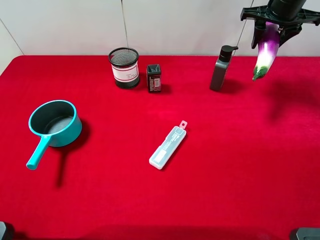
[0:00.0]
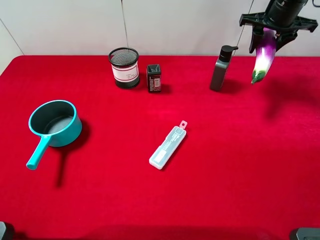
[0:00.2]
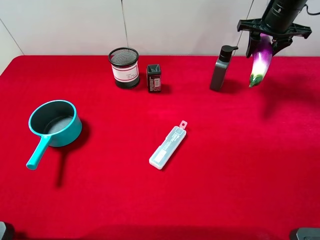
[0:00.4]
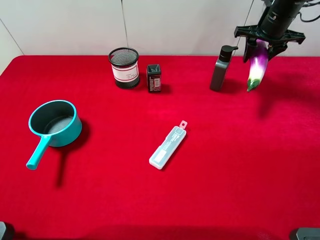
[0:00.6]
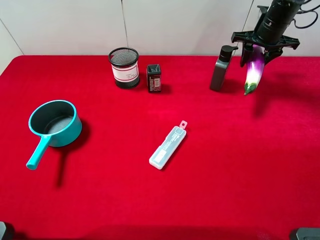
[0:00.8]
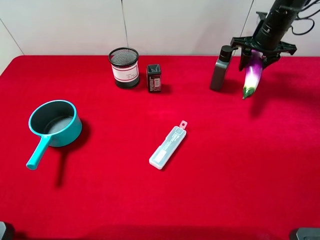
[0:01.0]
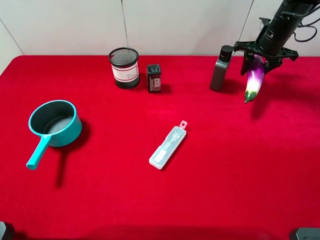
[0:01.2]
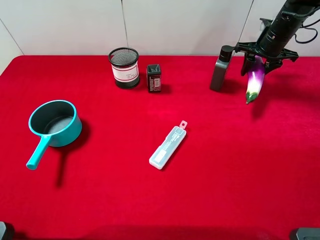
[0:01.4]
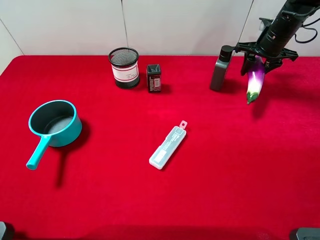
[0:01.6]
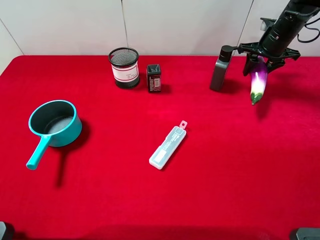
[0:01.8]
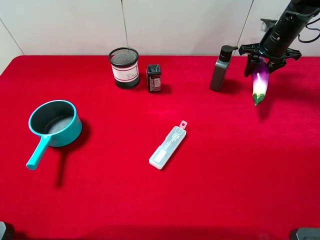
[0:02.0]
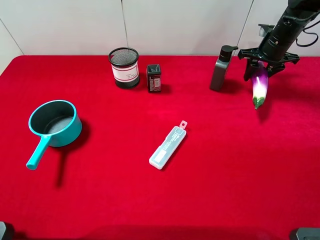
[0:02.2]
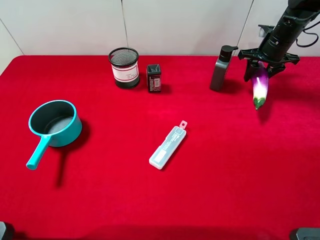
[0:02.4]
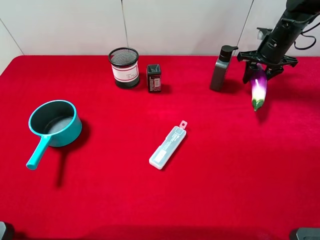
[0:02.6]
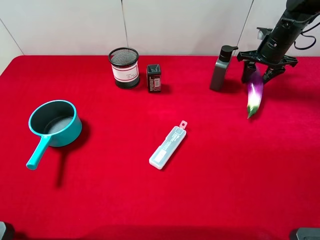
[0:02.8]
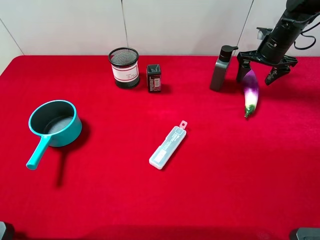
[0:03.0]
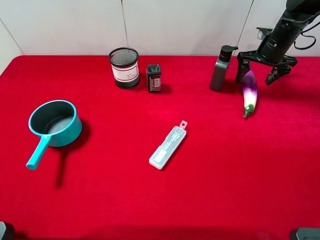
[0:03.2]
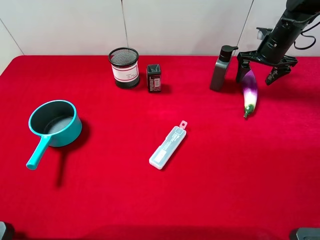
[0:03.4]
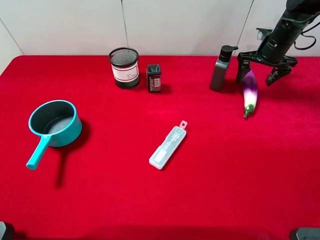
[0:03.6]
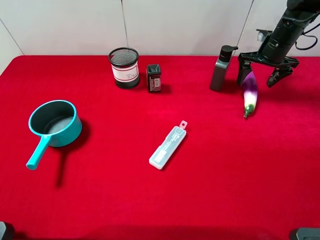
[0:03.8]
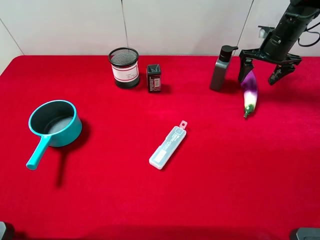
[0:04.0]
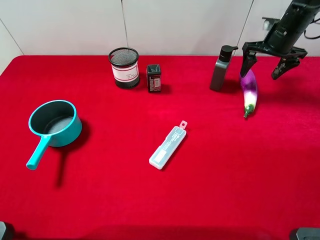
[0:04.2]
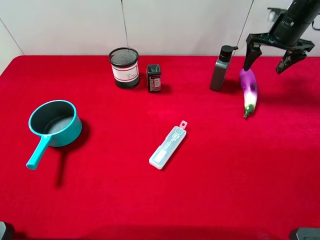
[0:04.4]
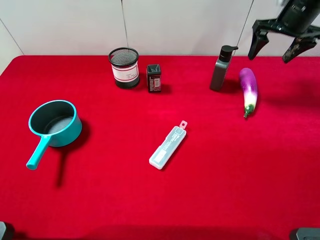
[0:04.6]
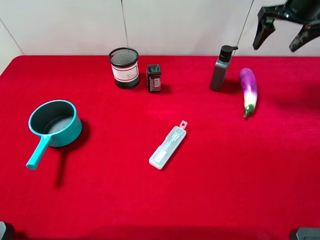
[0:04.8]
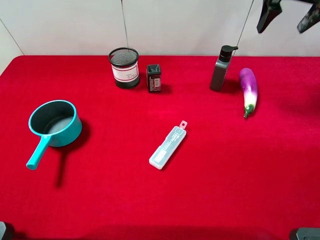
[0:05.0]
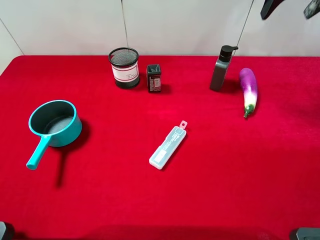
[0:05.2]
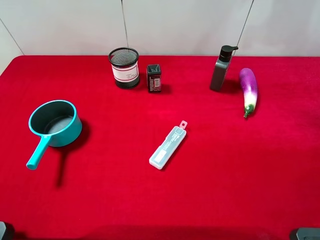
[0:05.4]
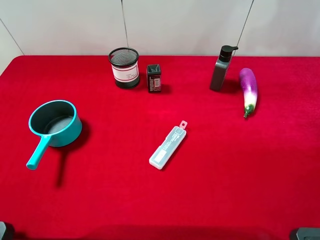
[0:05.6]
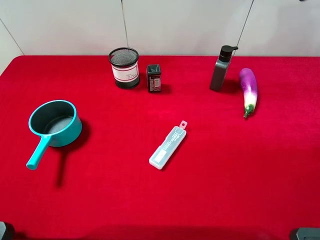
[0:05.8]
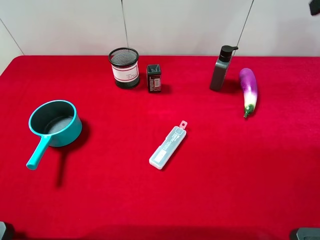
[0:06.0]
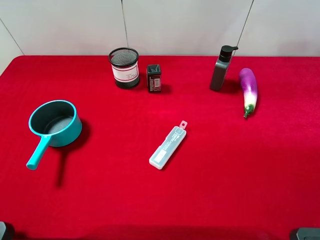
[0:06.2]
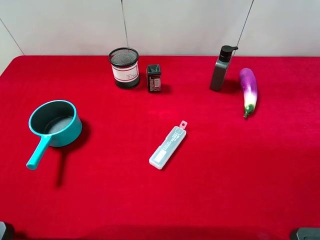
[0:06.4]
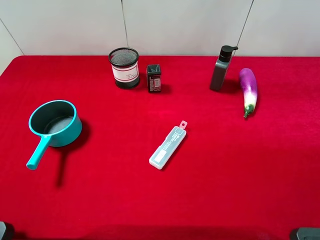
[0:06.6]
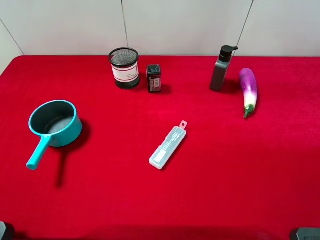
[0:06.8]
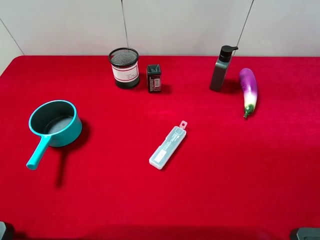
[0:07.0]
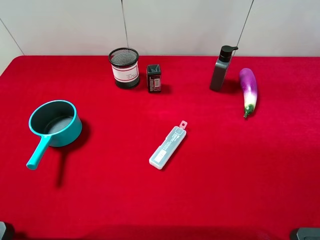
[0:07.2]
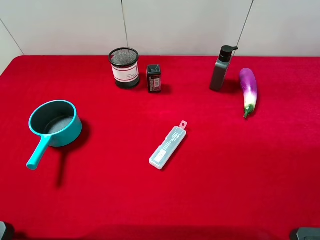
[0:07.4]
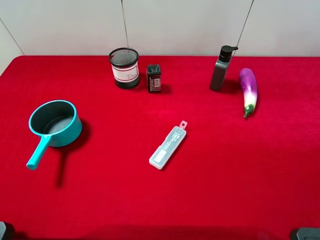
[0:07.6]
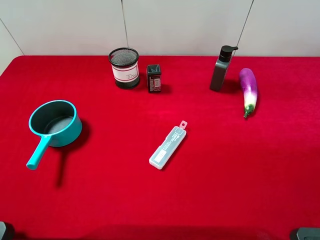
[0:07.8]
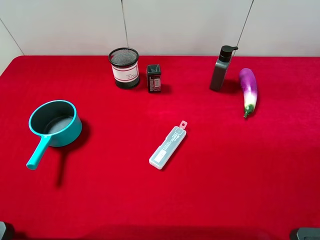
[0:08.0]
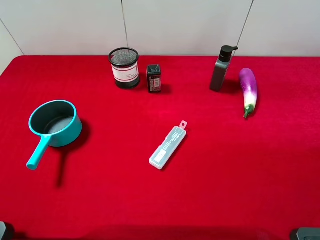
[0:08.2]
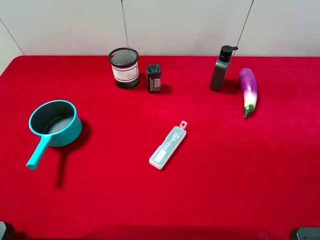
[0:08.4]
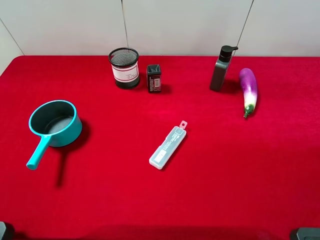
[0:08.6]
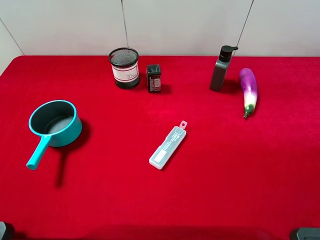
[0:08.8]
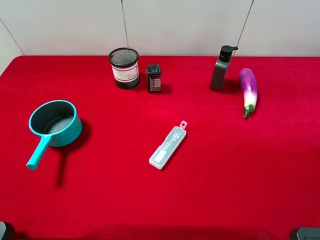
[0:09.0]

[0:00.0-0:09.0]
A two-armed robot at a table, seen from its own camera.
Task of the whole recording: the gripper move the object.
Step, 0:00.0 to 0:04.4: Place the eggplant on the table with the right gripper.
0:00.0 to 0:01.6: The right gripper is displaced downward by roughly 10 cm.
0:01.6 to 0:03.0: The right gripper opens up.
0:03.0 to 0:04.4: The right gripper shifts about 5 cm upward.
0:04.4 to 0:06.0: The right gripper shifts some 30 cm backward and upward.

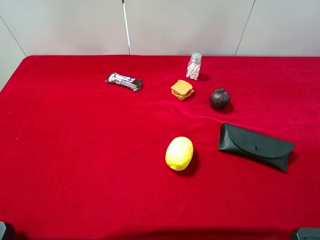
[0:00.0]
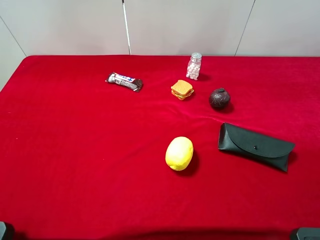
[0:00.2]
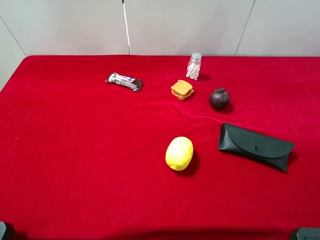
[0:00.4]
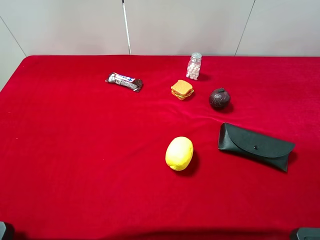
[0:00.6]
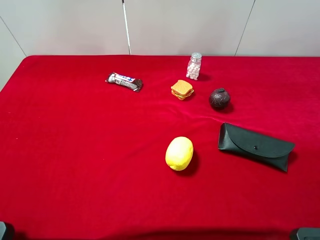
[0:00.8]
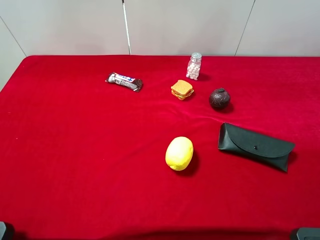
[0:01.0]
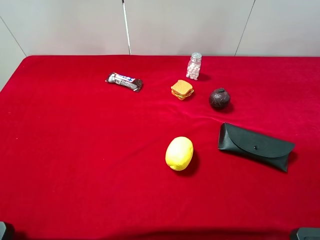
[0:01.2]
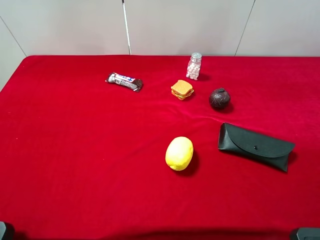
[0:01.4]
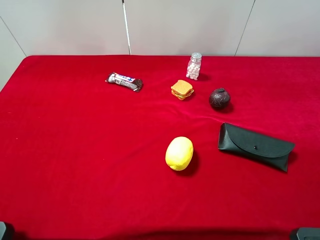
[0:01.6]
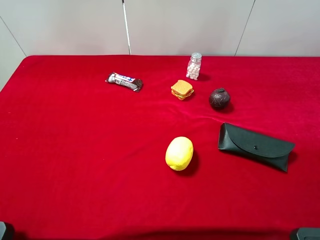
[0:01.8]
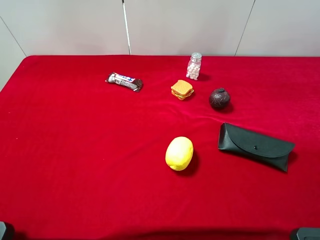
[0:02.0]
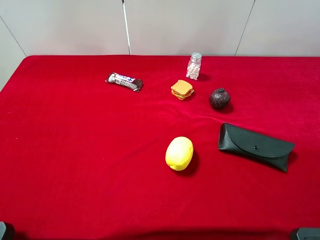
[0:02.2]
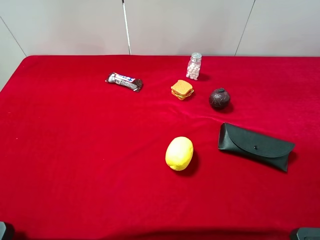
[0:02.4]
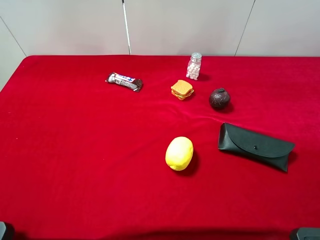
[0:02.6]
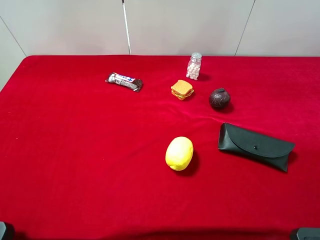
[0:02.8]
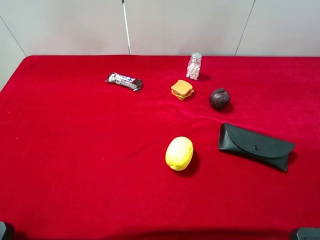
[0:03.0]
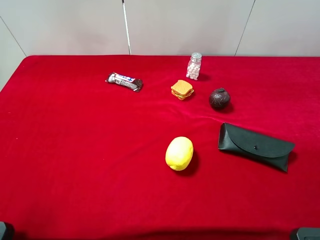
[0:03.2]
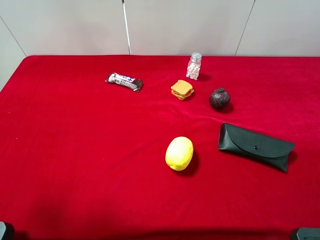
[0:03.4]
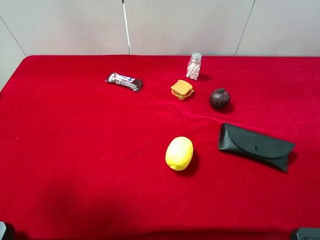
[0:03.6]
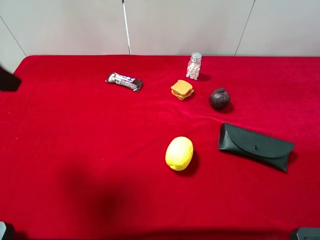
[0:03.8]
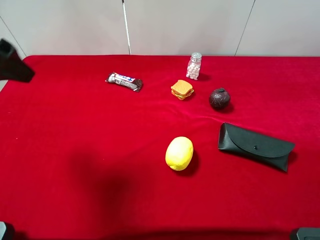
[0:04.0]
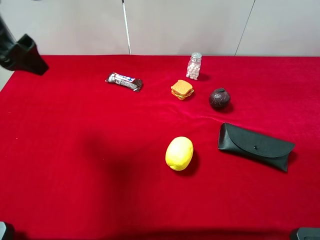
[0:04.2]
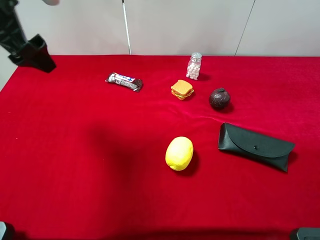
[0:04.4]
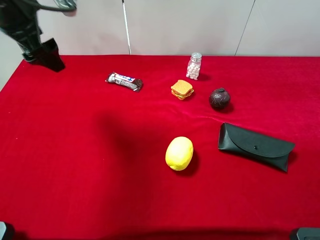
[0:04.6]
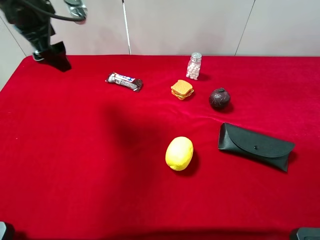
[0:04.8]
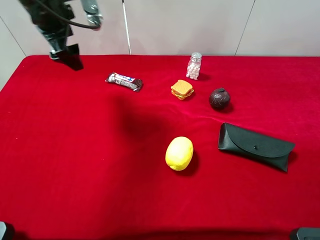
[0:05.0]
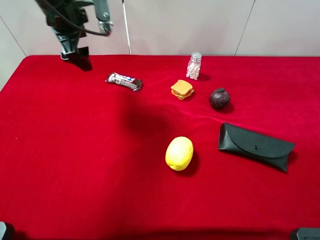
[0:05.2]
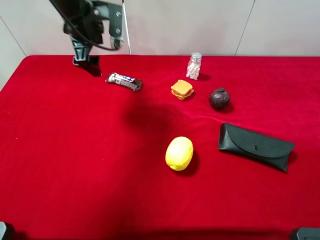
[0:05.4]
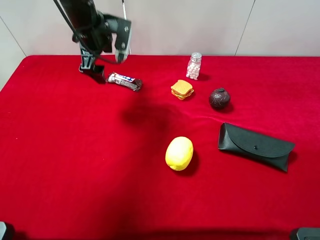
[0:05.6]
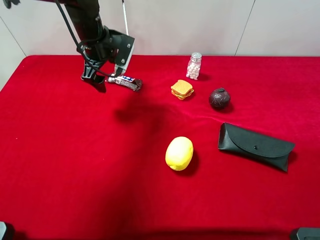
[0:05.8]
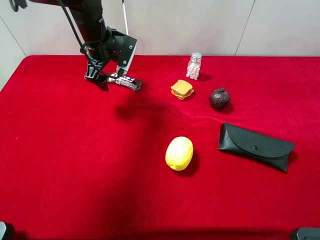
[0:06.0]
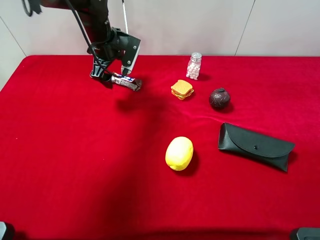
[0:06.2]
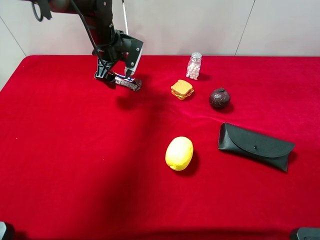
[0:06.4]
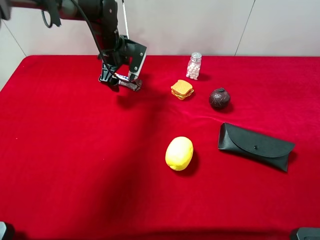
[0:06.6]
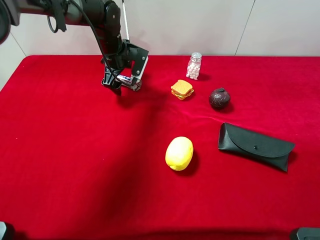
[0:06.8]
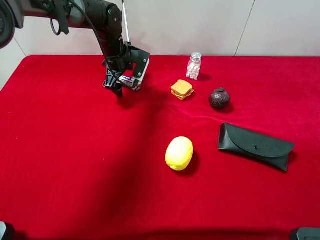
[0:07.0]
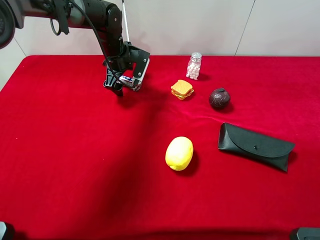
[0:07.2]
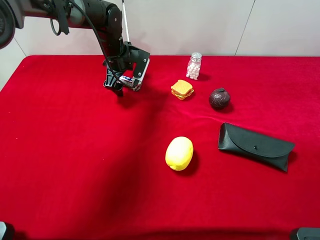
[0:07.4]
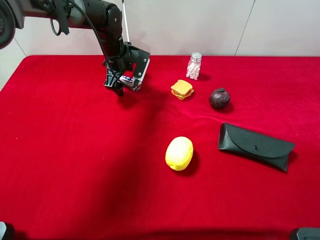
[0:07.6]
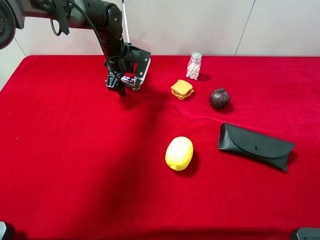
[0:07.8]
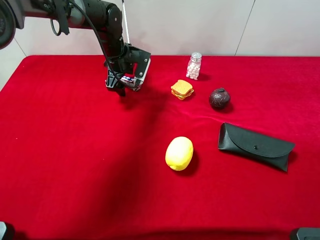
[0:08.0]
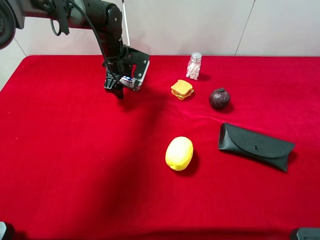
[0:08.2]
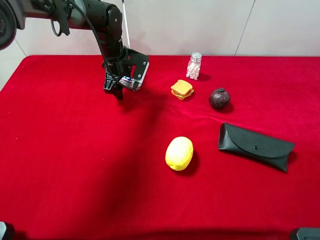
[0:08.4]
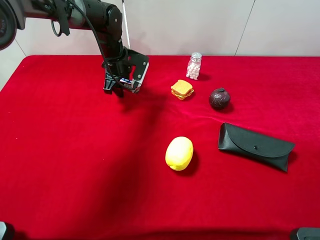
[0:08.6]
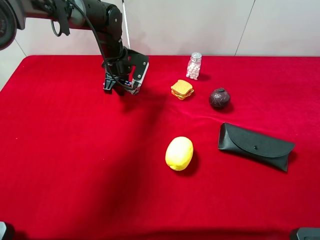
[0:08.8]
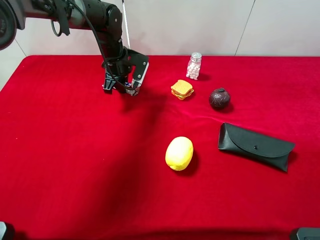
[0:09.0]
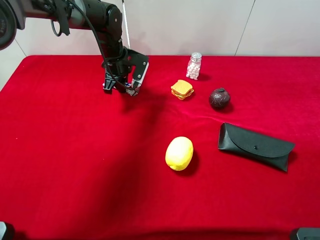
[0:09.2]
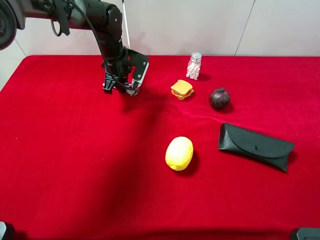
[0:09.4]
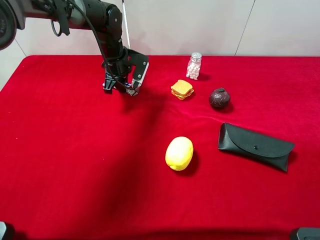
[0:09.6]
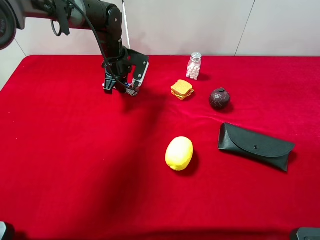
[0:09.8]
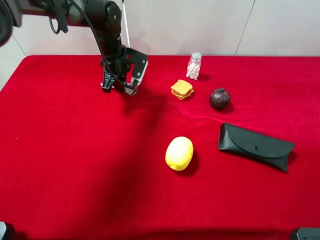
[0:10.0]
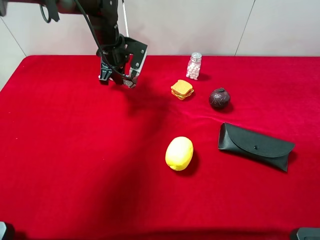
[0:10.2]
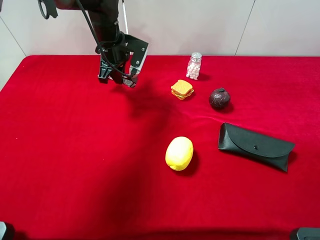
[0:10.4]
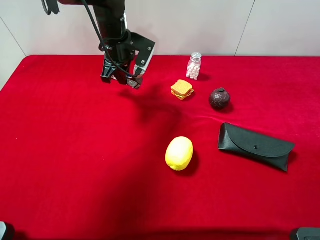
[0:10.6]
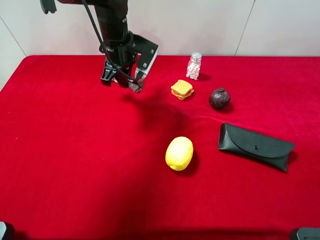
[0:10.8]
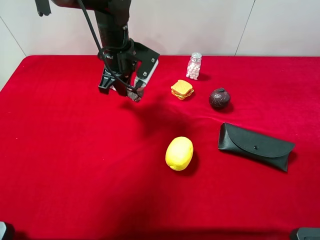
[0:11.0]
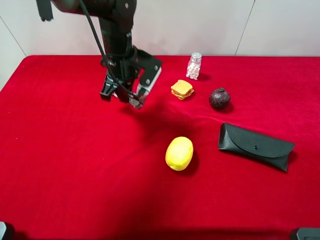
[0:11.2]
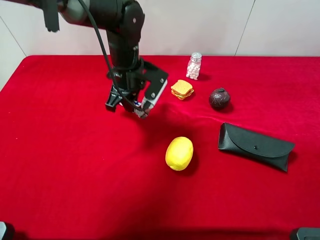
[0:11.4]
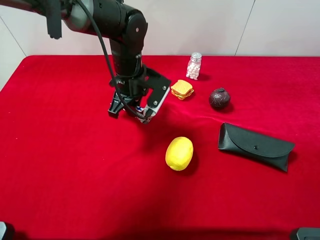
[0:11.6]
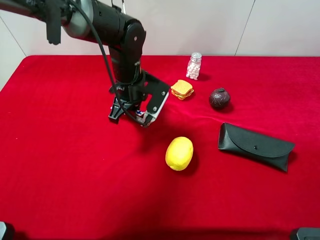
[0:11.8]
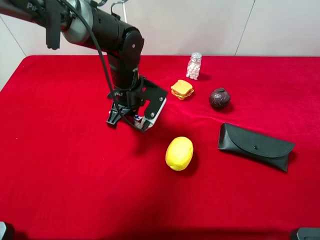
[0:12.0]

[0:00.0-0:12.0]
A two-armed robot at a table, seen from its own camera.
Task of the whole recording: the gripper move the object.
Step, 0:00.0 to 0:09.0: Grasp the snickers with the left gripper.
0:00.0 to 0:01.6: Both grippers stay put.
0:03.0 to 0:04.4: The left gripper heads forward, covering about 25 cm.
0:04.4 to 0:06.0: The left gripper travels downward, forward and to the right by approximately 25 cm.
0:06.0 to 0:07.6: The left gripper shifts roughly 5 cm downward.
0:07.6 to 0:09.0: The left gripper closes its fingers.
0:09.0 to 0:10.4: The left gripper ends up about 5 cm from where it was.
0:10.4 to 0:12.0: The left gripper shifts about 10 cm backward.

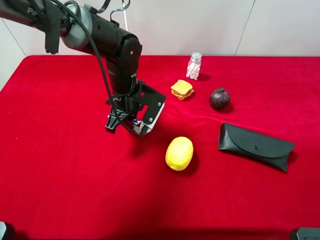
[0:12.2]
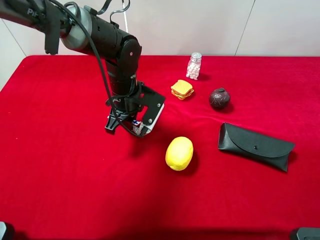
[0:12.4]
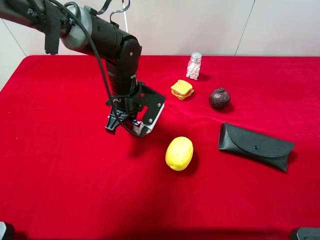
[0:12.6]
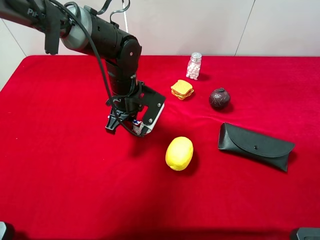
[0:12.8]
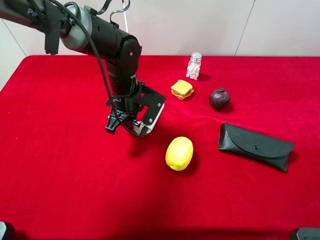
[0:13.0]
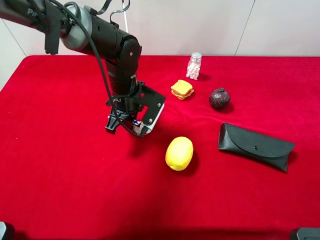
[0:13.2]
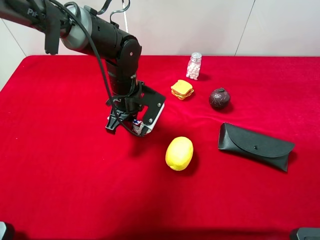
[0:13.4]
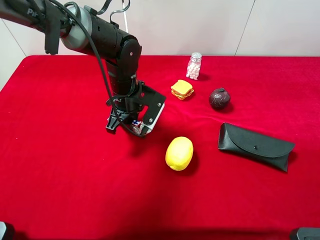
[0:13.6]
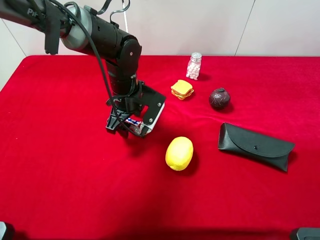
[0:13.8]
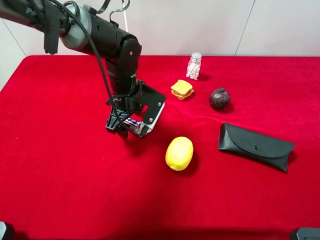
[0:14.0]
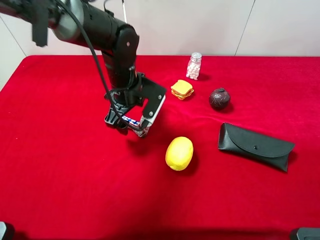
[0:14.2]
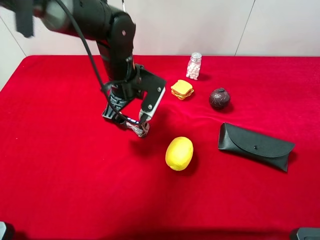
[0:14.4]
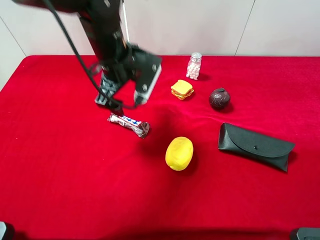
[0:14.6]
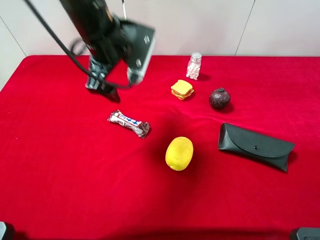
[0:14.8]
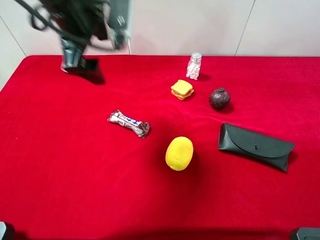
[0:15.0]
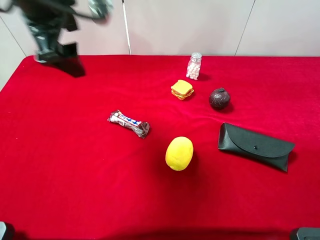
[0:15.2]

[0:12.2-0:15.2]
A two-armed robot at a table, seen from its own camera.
Task of the whole recording: the gripper move the object.
Step, 0:12.2 to 0:14.6: Place the snickers on the table with the left gripper.
0:12.2 to 0:13.8: The left gripper opens.
0:13.8 to 0:15.2: The left gripper is displaced upward by about 25 cm.
